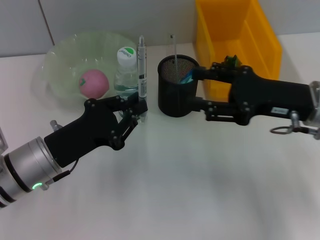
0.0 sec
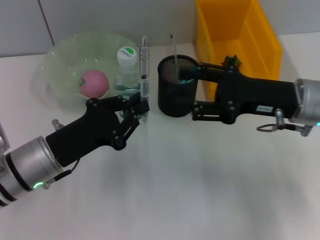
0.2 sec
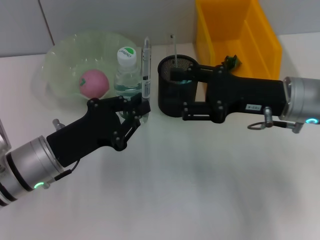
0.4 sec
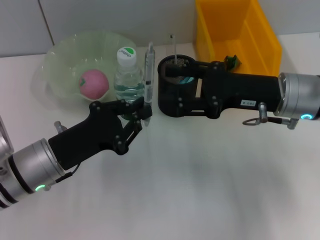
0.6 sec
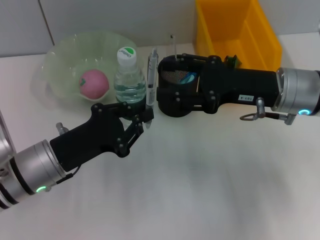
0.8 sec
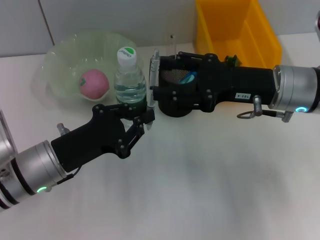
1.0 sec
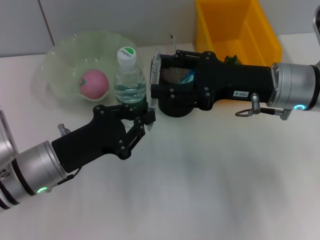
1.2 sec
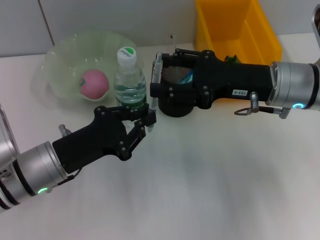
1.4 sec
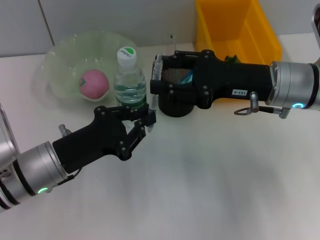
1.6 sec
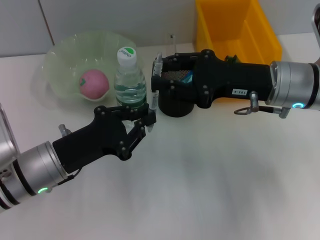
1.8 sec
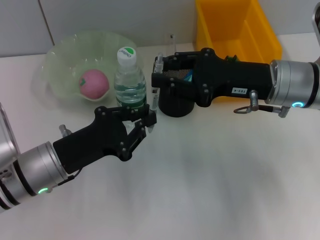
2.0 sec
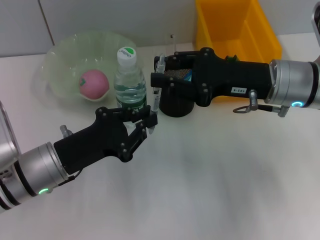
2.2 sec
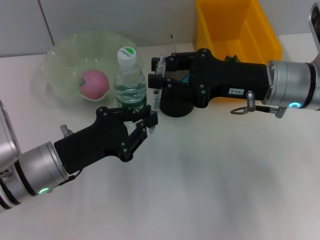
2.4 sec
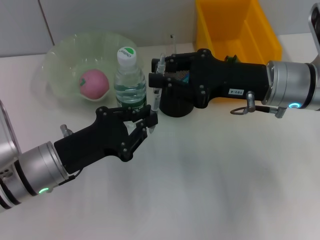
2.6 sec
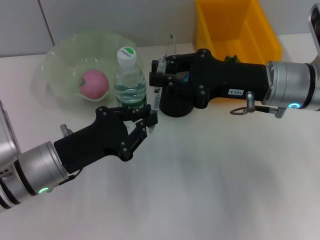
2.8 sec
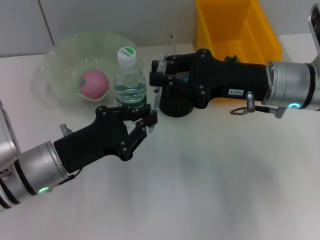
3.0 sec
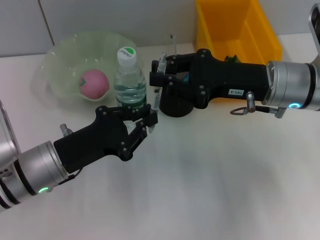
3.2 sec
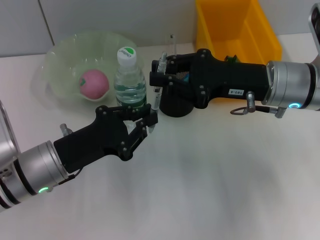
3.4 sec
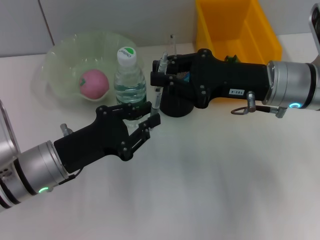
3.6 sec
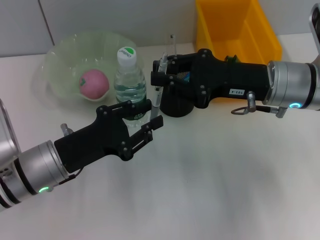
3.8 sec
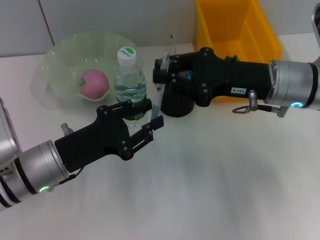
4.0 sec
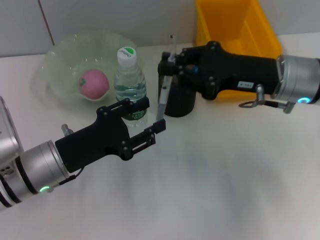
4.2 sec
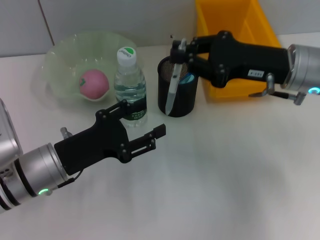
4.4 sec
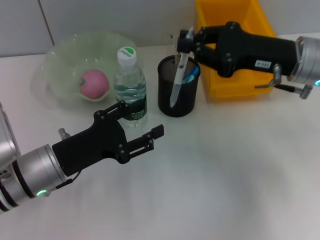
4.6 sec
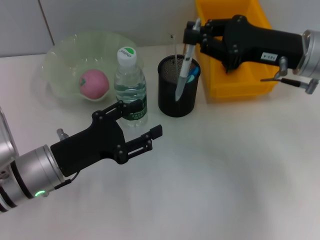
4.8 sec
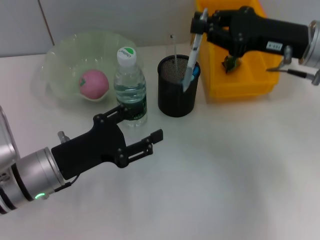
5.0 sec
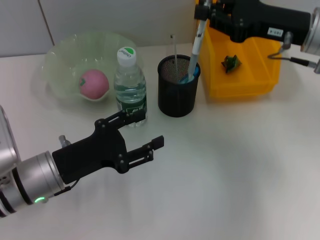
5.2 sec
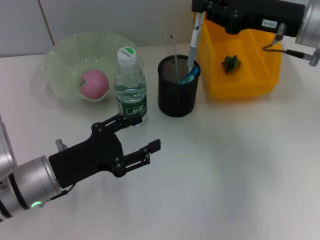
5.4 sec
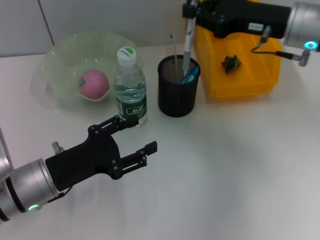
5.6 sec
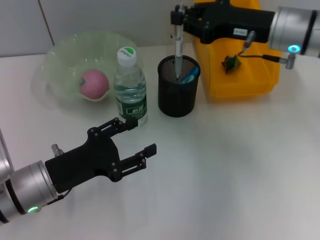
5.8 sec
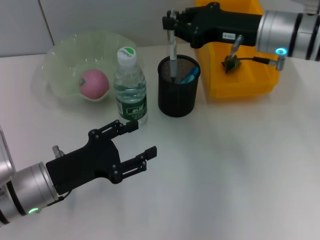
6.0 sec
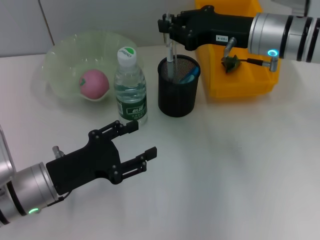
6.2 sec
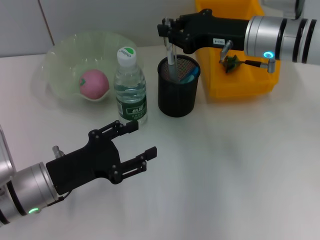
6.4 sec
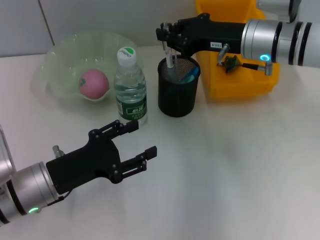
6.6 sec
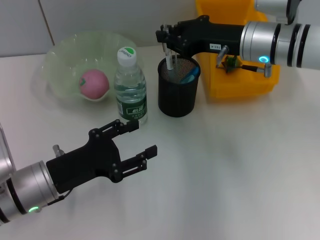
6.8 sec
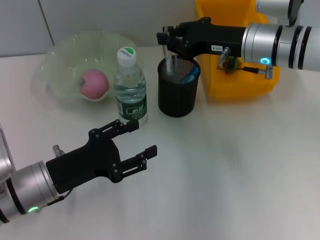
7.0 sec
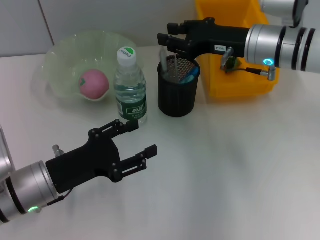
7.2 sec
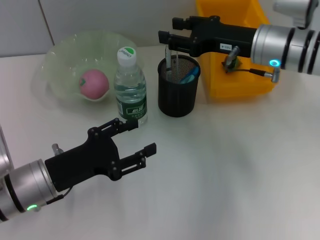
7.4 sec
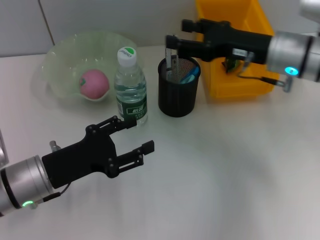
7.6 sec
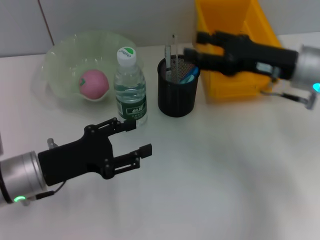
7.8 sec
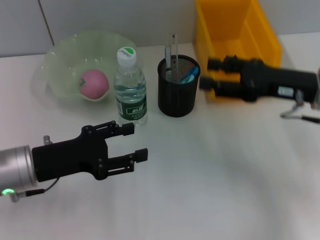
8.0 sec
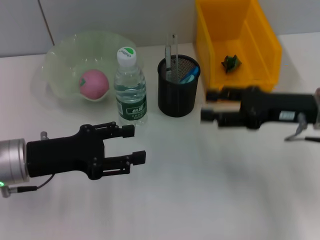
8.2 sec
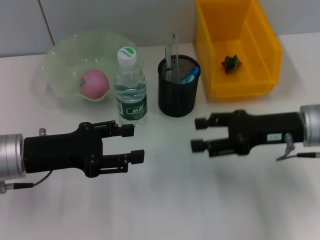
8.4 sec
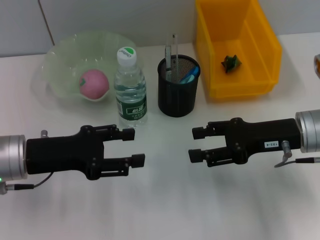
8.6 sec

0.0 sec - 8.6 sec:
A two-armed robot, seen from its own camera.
Step, 0.0 sec - 3.6 sec: Pass the gray spring-action pen from the left hand to the right hand.
Step, 3.8 sec - 7.2 sec: Place the gray spring-action pen into the pen holder with the right hand.
0.0 sec - 1.4 sec: The right gripper shifts by some 5 cm.
1.4 sec - 2.8 sec: The right gripper closes its fingers.
2.8 sec - 4.4 sec: The left gripper opens.
4.4 sec - 5.8 sec: The right gripper travels forward by some 5 cm.
5.8 sec - 7.2 sec: The grippers stay close to where they were, moving slightly.
7.2 sec - 8.6 sec: The right gripper moves backward and to the right, about 10 cm, and opens, while the left gripper heads upward, covering some 5 cm.

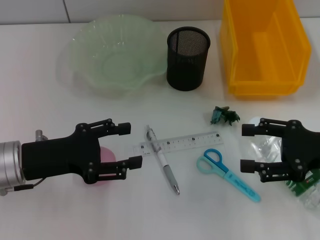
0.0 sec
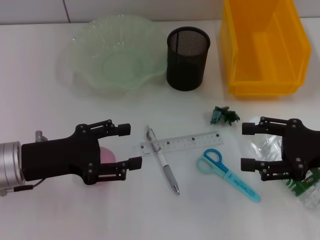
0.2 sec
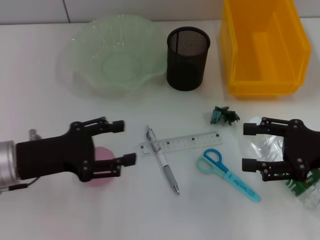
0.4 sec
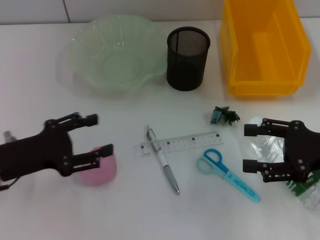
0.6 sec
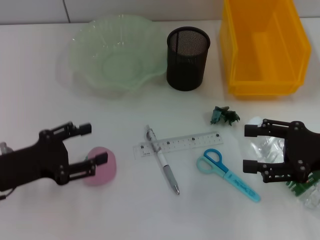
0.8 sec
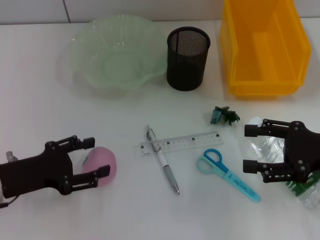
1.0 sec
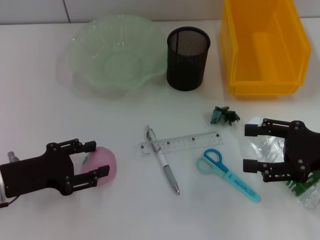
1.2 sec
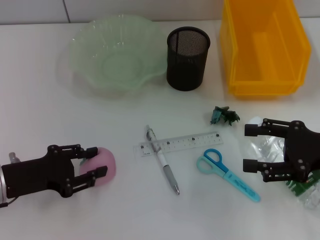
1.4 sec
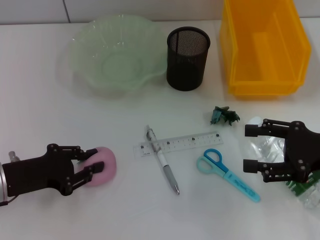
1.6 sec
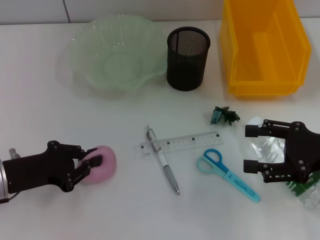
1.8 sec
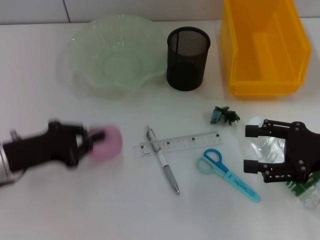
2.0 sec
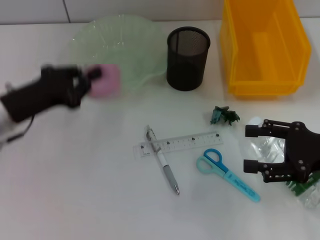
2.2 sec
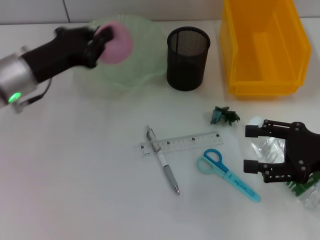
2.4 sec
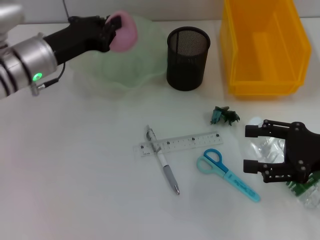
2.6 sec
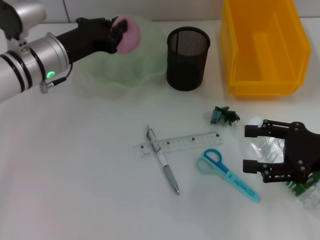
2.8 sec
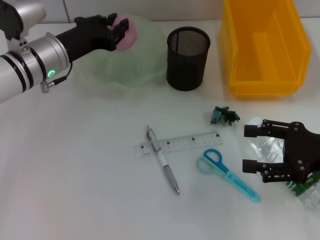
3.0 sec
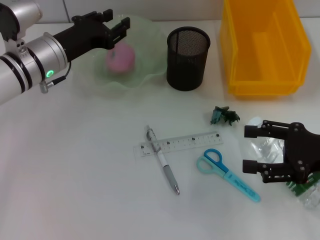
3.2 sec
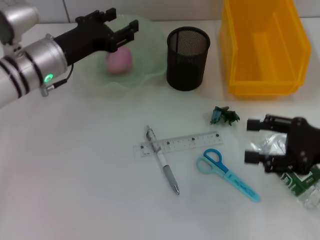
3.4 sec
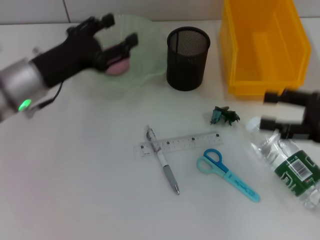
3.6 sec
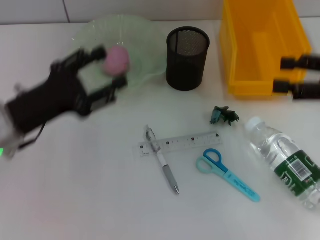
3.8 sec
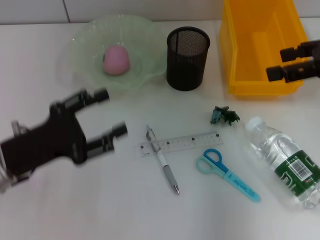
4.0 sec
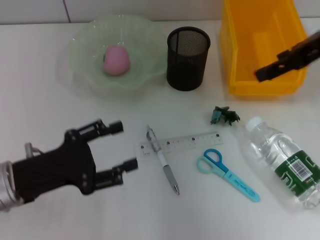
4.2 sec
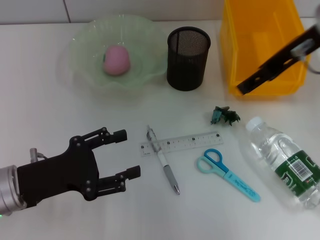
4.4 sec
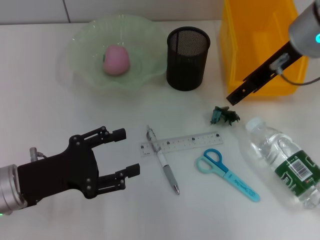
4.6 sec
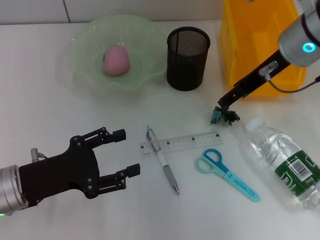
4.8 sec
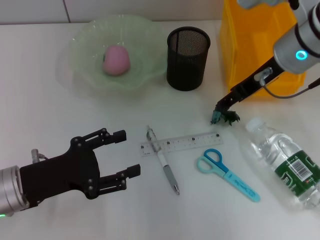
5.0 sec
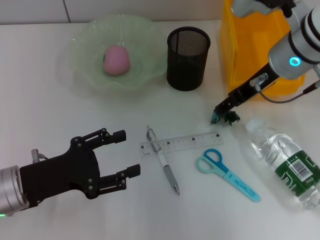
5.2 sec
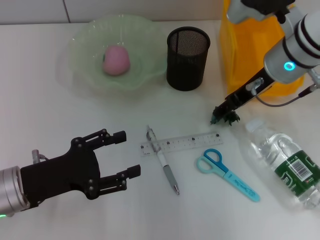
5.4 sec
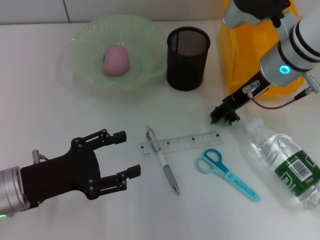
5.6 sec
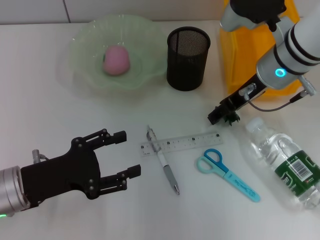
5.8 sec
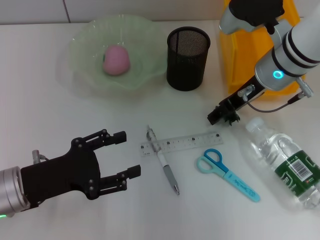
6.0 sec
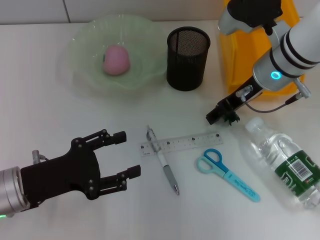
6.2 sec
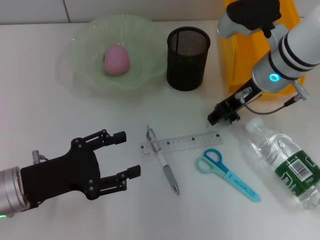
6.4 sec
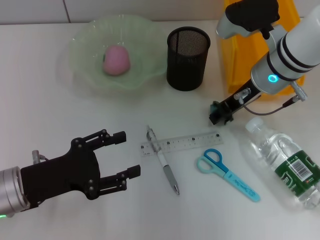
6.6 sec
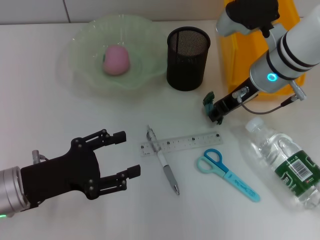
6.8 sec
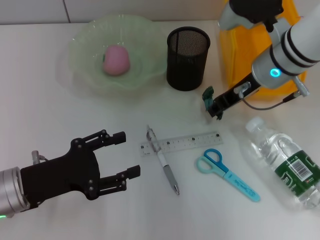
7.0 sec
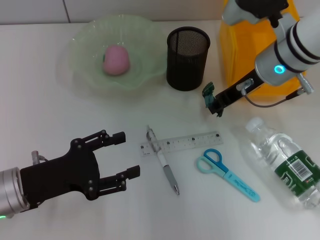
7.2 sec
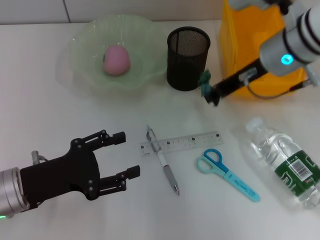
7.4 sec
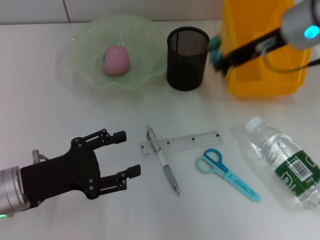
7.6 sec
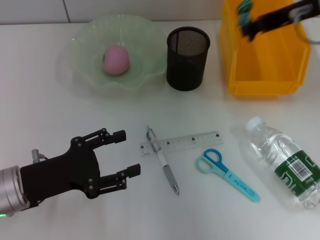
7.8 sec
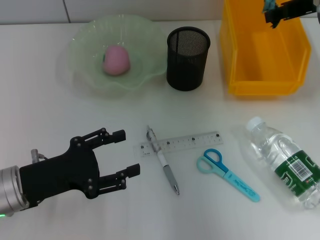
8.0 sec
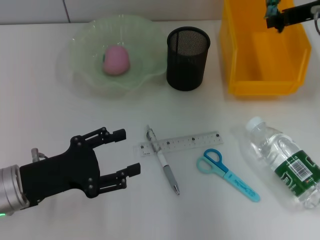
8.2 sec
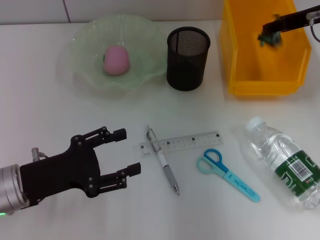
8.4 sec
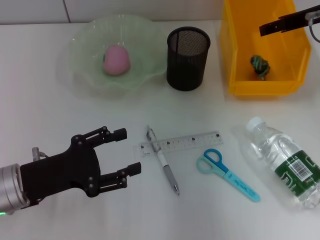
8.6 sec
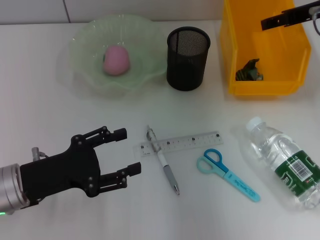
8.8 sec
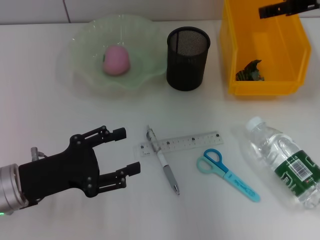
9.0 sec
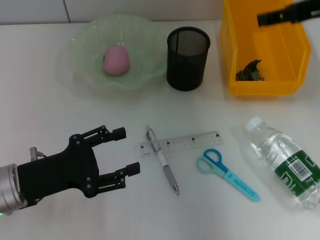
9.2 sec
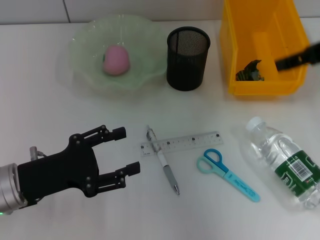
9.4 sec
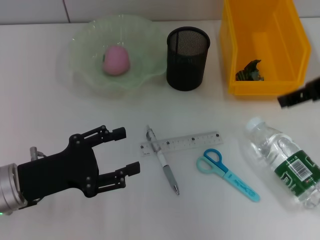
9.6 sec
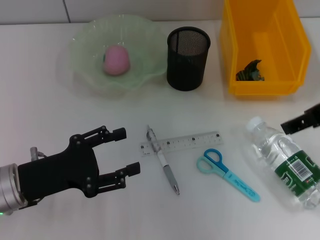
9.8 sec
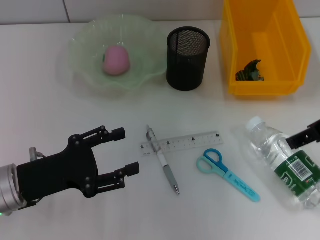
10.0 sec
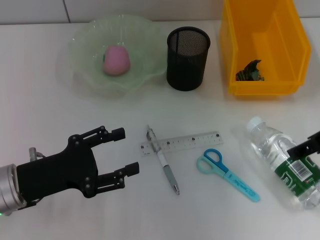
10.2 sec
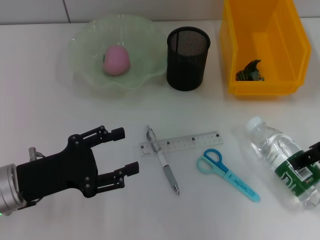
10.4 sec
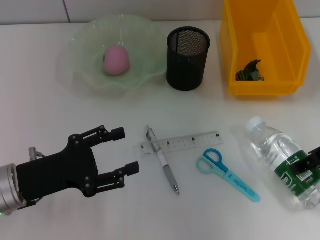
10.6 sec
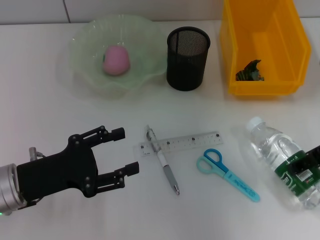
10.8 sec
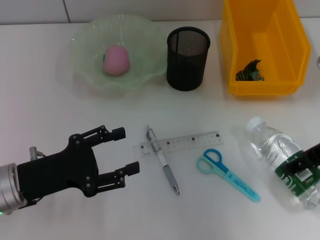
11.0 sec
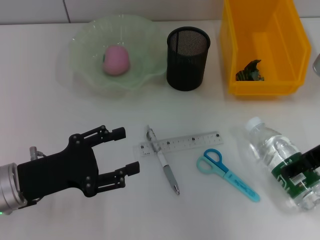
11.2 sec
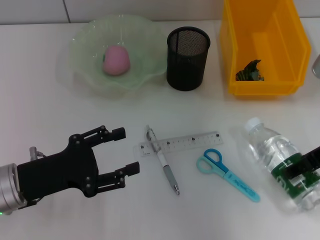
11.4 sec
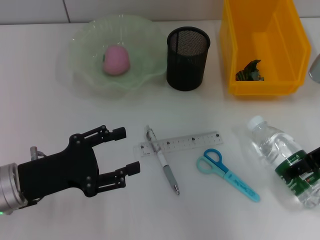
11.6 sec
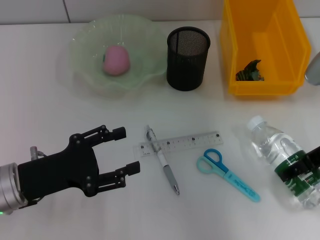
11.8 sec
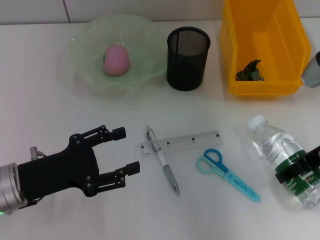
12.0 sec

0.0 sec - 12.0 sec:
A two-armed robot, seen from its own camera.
Step, 0.0 sec - 1.6 sec: Grab the peach with the left hand.
Step, 1.8 sec - 3.2 sec: Place the peach into the fruit bowl with the left hand.
Step, 3.4 sec - 6.6 sec: Grab the plastic with the right hand.
Step, 7.0 sec - 8.6 sec: Place the plastic into the trash can with the right hand.
0.0 sec - 1.6 sec: The left gripper moves roughly 5 cm, and closes up.
1.6 sec - 3.0 sec: The left gripper travels forward and to the right by approximately 20 cm, and closes its fingers.
3.0 sec - 4.4 sec: The left gripper shifts about 20 cm backward, and opens; the right gripper is displaced upward, forward and to the left by about 20 cm.
4.4 sec - 6.0 sec: The right gripper travels downward by some 10 cm.
6.0 sec - 7.6 sec: The right gripper travels upward by about 10 cm, and closes its fingers.
7.6 sec - 9.0 sec: The right gripper heads to the right, covering about 5 cm, and opens its fingers.
9.0 sec - 10.4 sec: The right gripper is displaced backward by roughly 10 cm.
10.4 sec - 12.0 sec: The right gripper moves downward, about 5 cm.

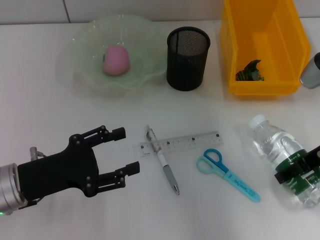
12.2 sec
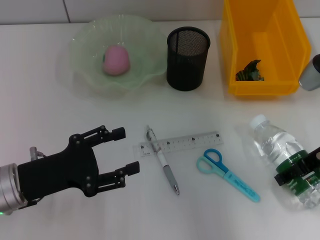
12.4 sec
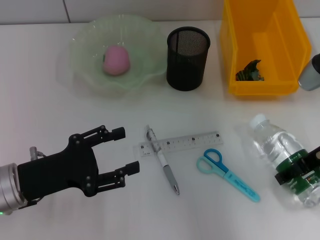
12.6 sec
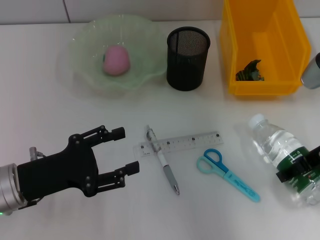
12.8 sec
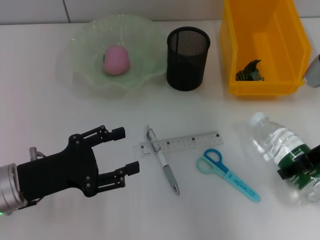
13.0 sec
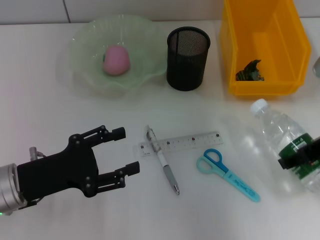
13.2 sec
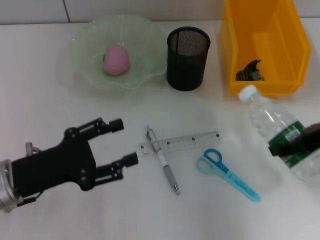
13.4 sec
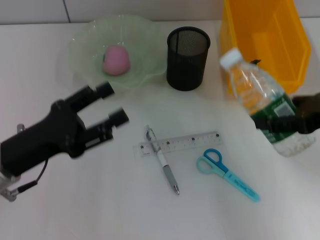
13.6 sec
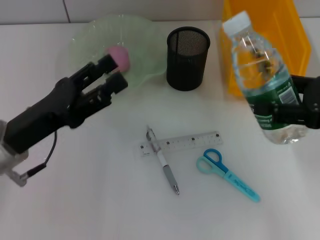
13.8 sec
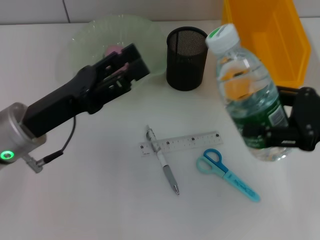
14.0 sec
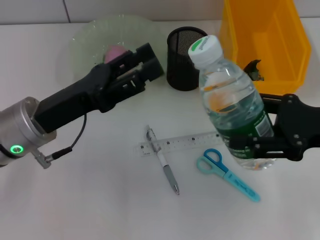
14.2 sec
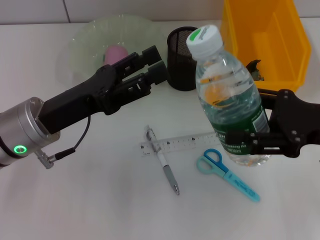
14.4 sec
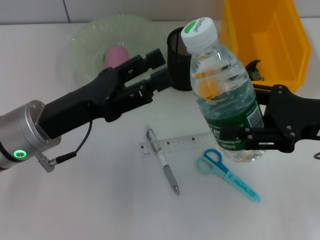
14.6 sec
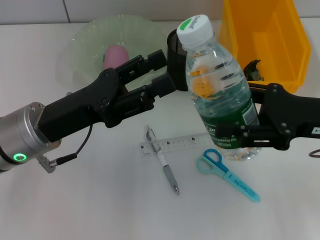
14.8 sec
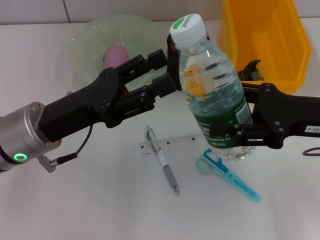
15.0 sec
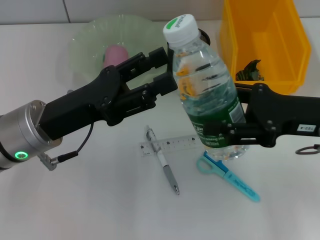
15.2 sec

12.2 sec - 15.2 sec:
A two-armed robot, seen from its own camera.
12.2 sec - 13.8 sec: The right gripper heads to the right, covering roughly 5 cm.
13.8 sec - 15.2 sec: The left gripper shifts by about 5 cm. The right gripper shifts about 5 cm to the left.
